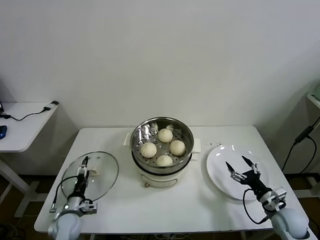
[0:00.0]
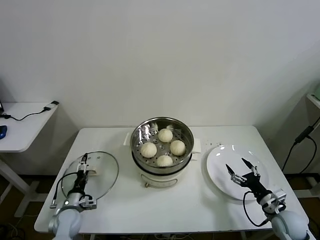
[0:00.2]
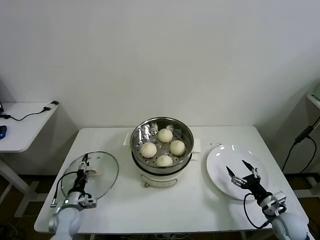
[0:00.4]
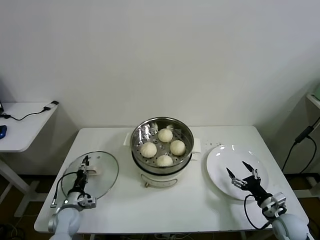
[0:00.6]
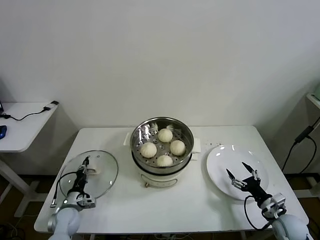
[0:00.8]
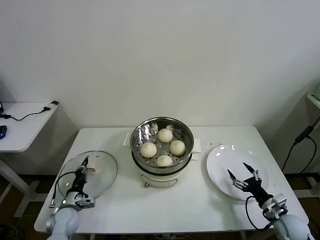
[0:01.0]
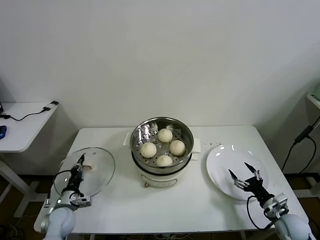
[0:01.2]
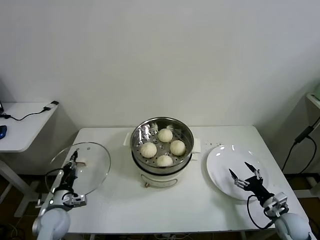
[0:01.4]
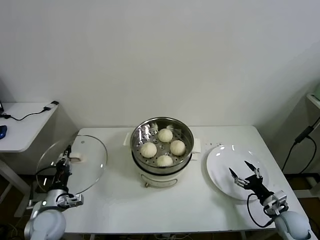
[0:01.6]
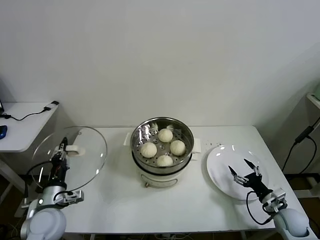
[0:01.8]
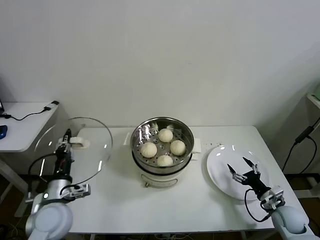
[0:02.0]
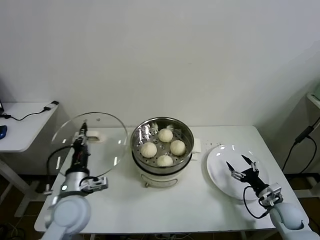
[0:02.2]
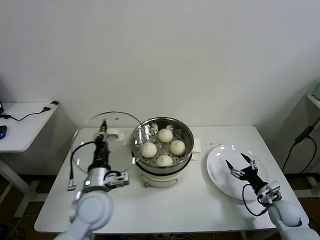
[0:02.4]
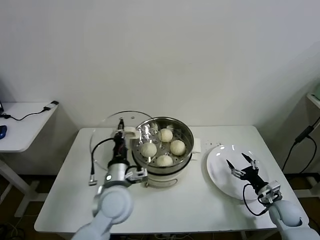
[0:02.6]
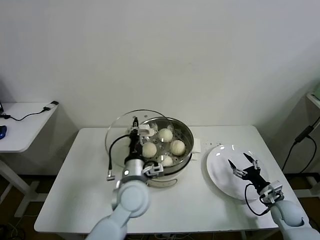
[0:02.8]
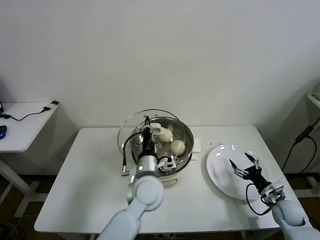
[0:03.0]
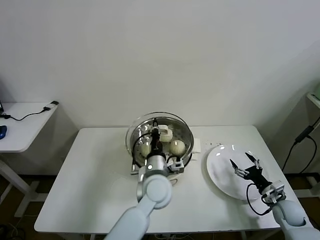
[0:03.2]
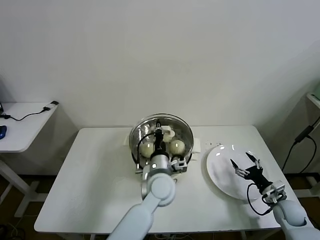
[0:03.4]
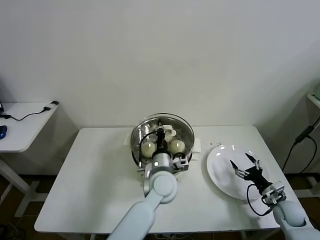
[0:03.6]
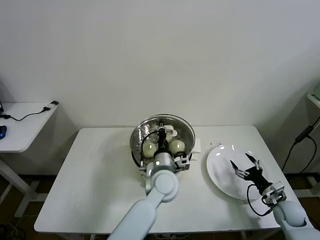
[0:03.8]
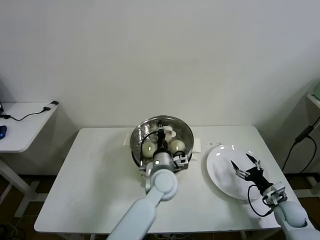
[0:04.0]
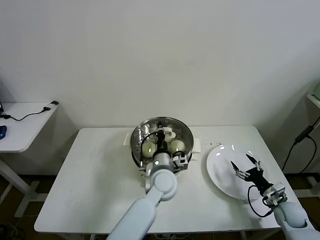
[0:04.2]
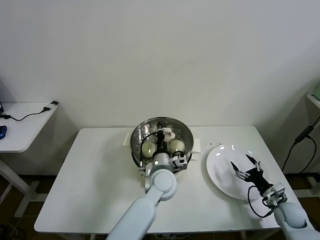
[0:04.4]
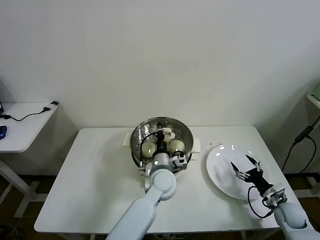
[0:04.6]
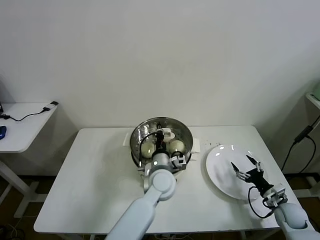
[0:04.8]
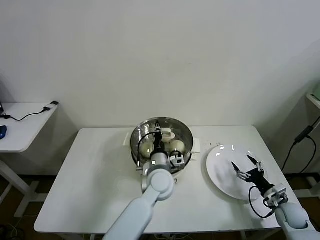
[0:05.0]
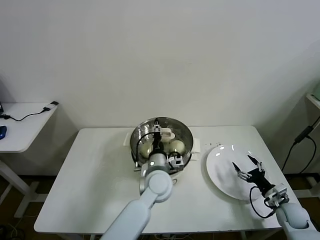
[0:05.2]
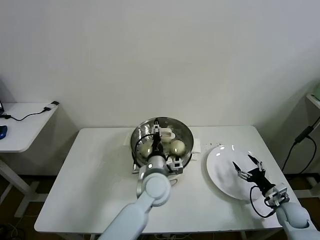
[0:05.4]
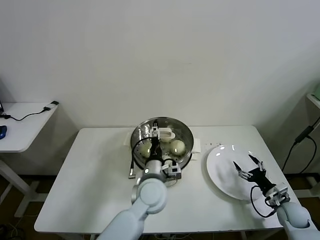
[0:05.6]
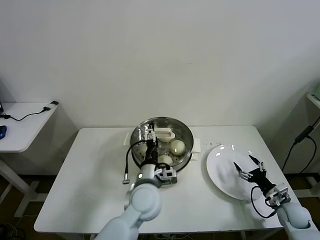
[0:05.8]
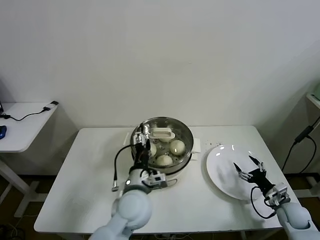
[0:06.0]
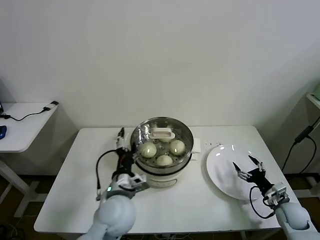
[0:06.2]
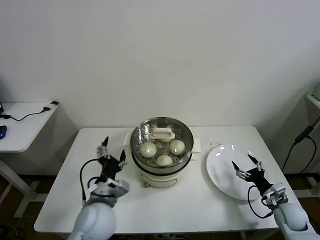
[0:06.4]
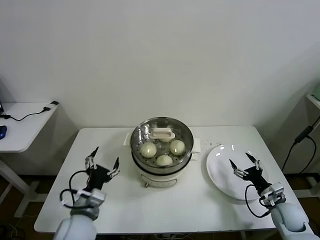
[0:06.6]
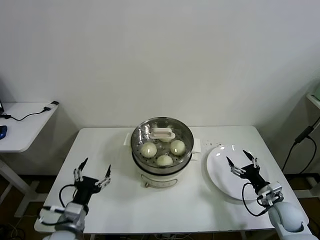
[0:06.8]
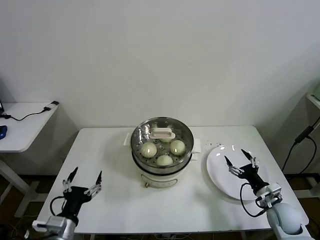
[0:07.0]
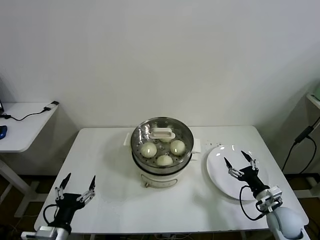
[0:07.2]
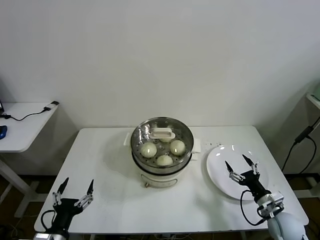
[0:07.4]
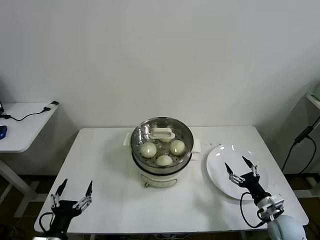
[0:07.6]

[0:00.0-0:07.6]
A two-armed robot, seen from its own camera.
Task of the whole recording: take steamed baozi put them in steamer then cover it.
Step, 0:01.0 to 0:05.2: Place the pot lid on the steamer with left gripper.
0:00.0 to 0:01.6: The left gripper travels upward by about 10 cm, and closes up.
0:01.6 to 0:03.0: The left gripper shifts about 30 cm to the right.
0:03.0 to 0:04.6: The left gripper changes place by some 10 cm.
0:04.6 to 0:06.0: The left gripper goes about 10 cm backward and to the left, and opens up.
0:06.0 to 0:07.6: The left gripper is displaced to the left and backward by roughly 30 cm. The right gripper shifts roughly 5 cm to the left.
